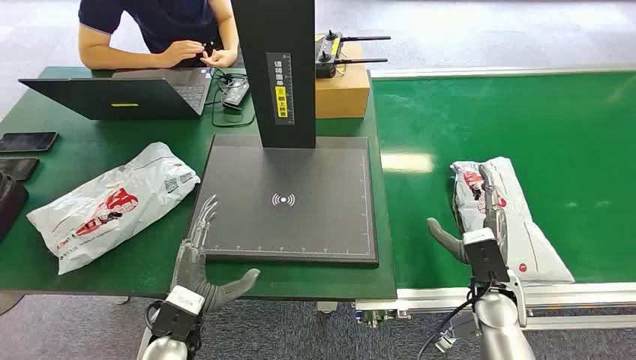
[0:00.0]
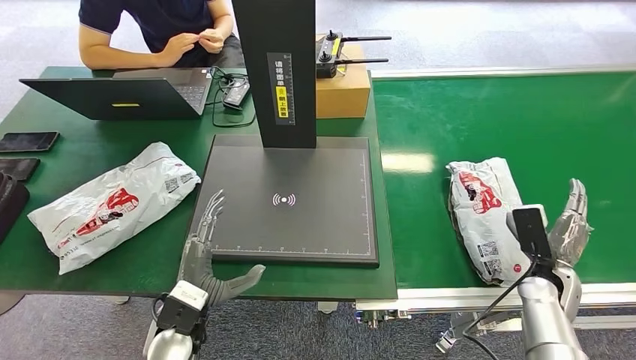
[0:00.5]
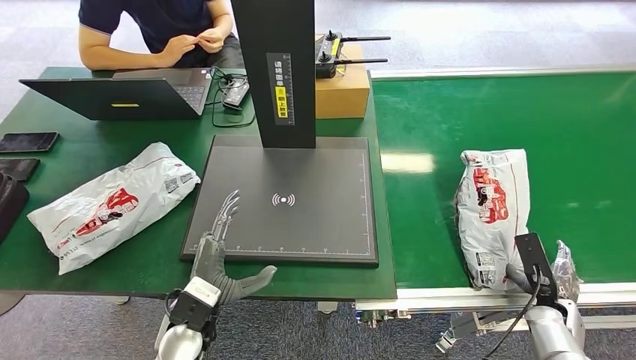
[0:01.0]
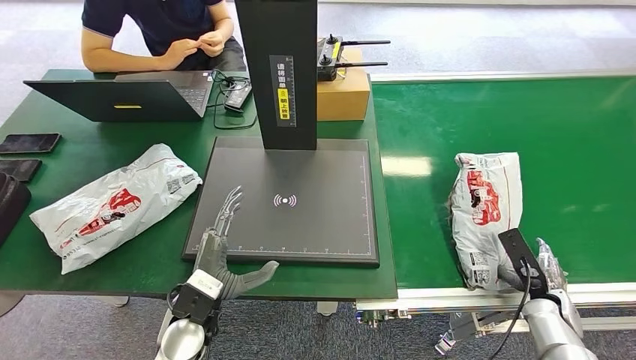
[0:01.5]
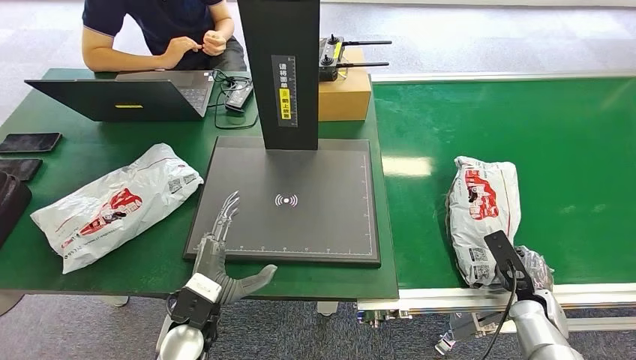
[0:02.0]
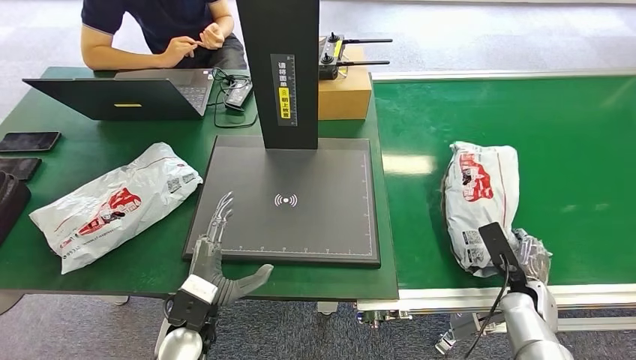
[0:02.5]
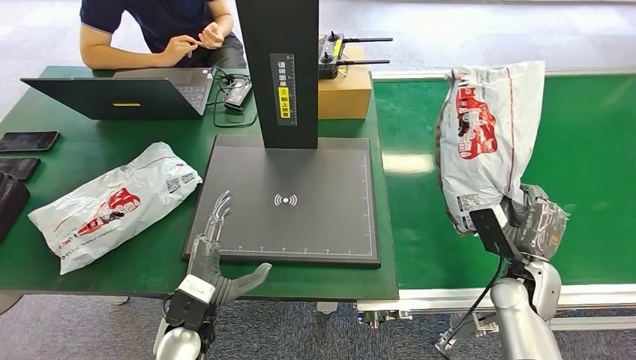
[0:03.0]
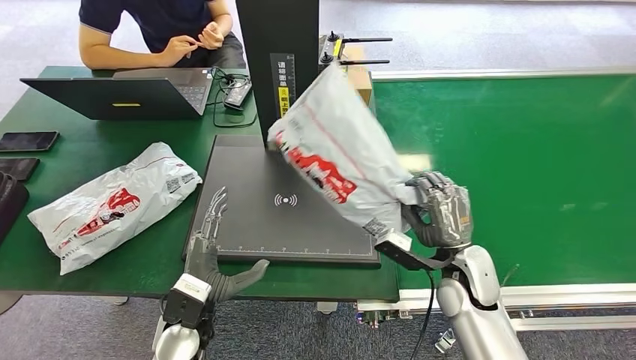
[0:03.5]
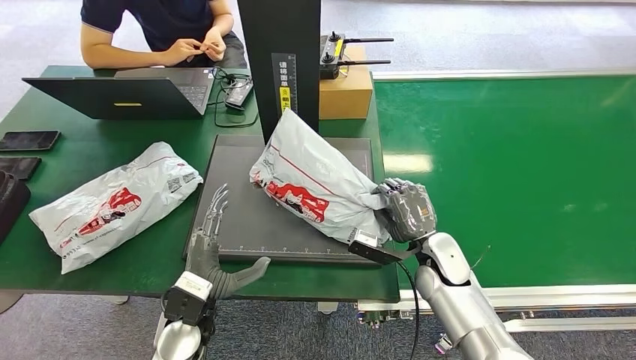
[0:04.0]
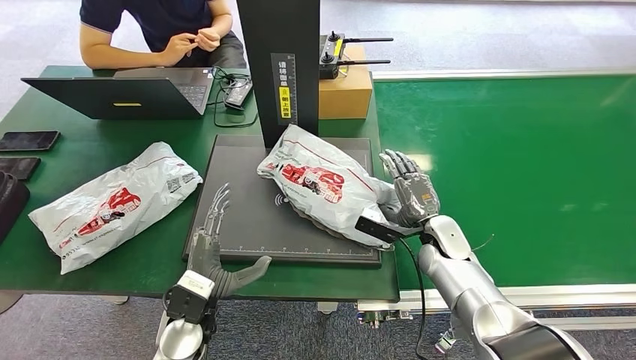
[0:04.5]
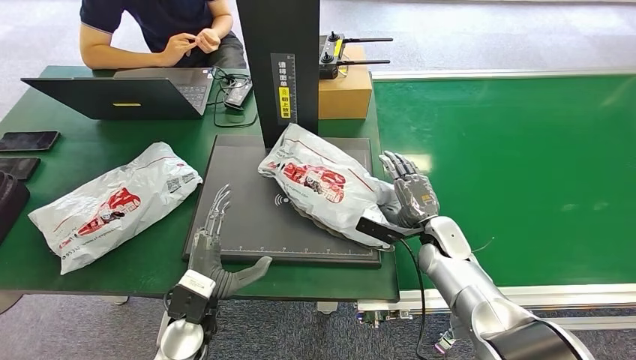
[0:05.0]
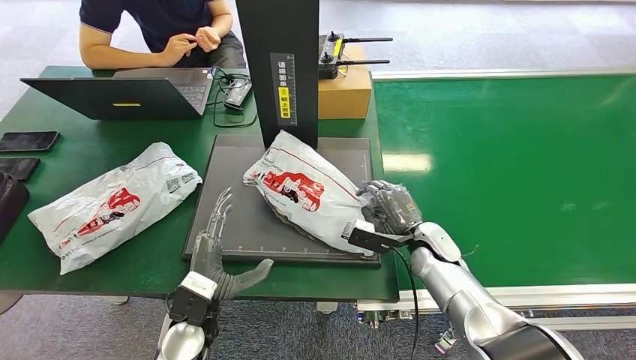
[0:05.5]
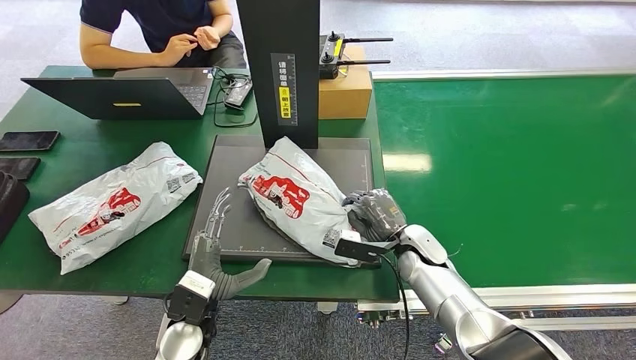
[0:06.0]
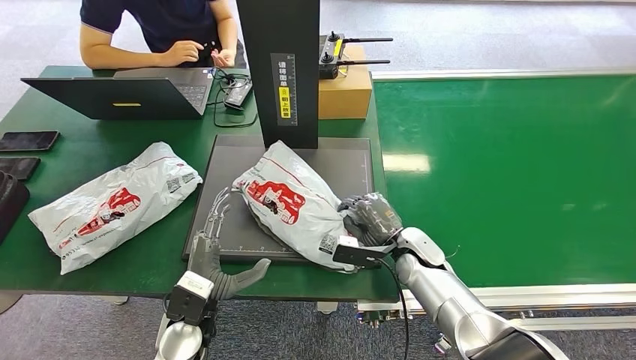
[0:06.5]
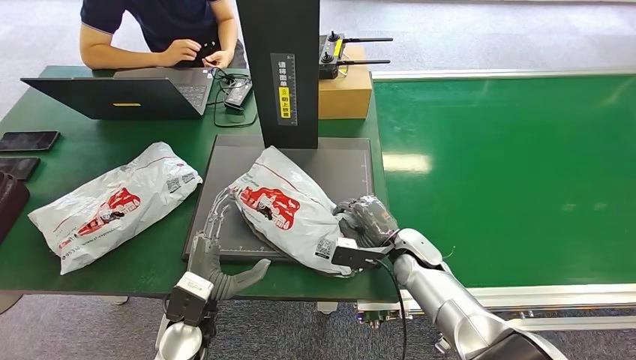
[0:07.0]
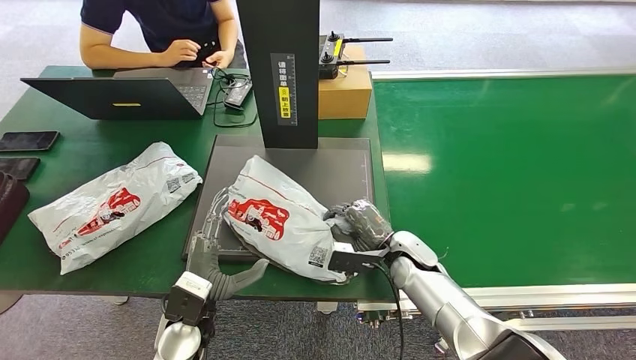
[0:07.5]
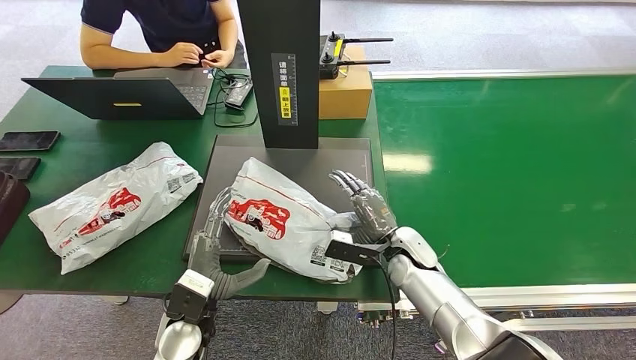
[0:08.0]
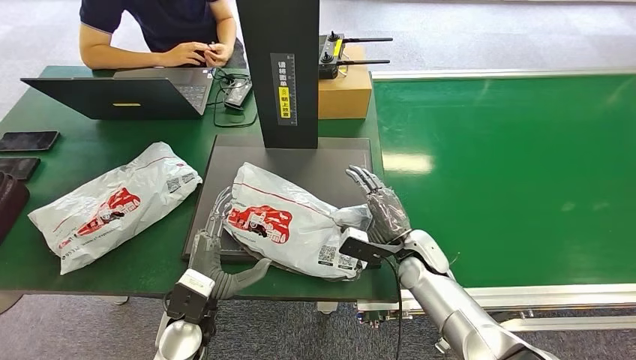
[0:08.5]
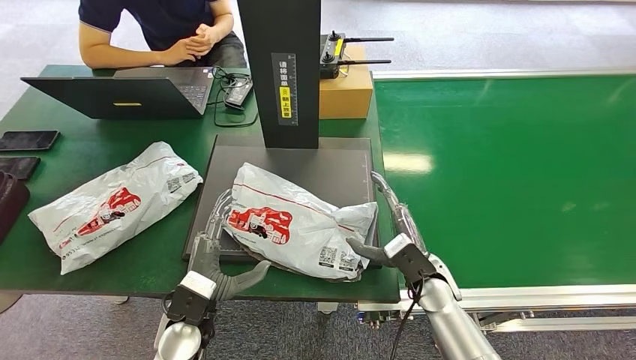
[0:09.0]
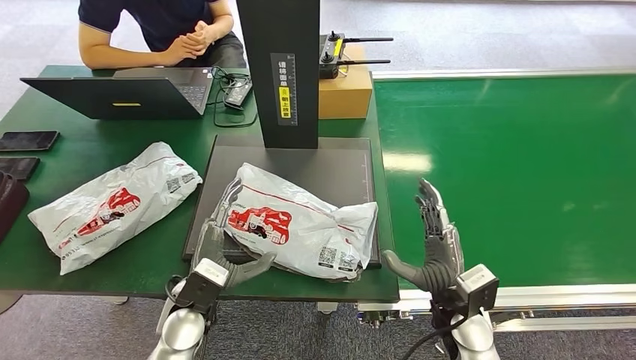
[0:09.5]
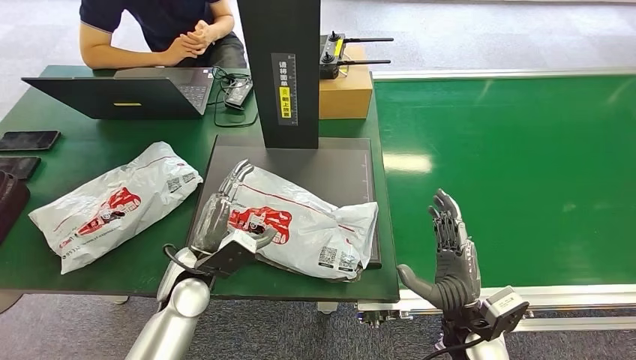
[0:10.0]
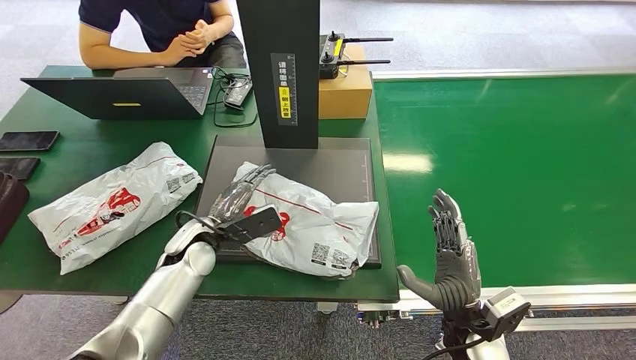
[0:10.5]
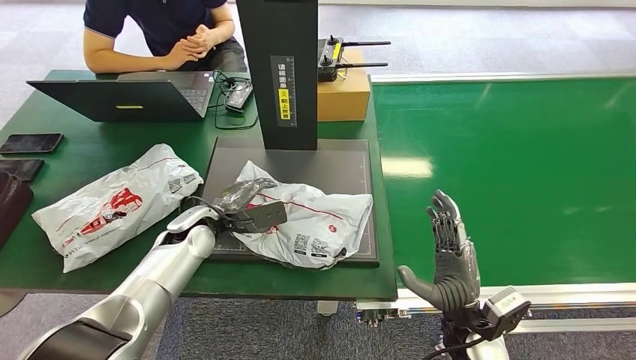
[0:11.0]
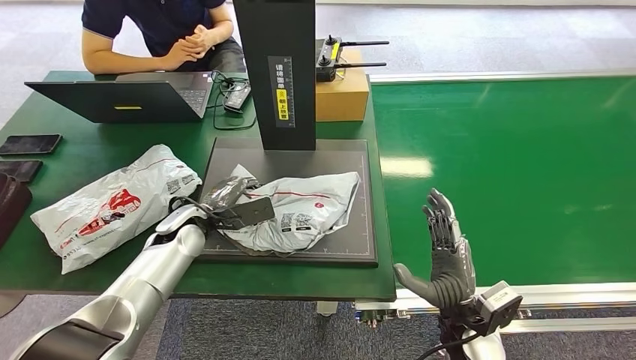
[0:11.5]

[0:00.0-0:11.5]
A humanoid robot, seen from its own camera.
Step, 0:00.0 to 0:02.5: Pick up the package from the conveyor belt.
Step, 0:03.0 to 0:08.5: Place the package onto the inbound machine.
0:04.0 to 0:06.0: The right hand moves approximately 5 cm.
0:06.0 to 0:07.5: The hands move only a little.
0:07.5 to 0:09.5: The right hand is displaced backward and to the right by approximately 15 cm.

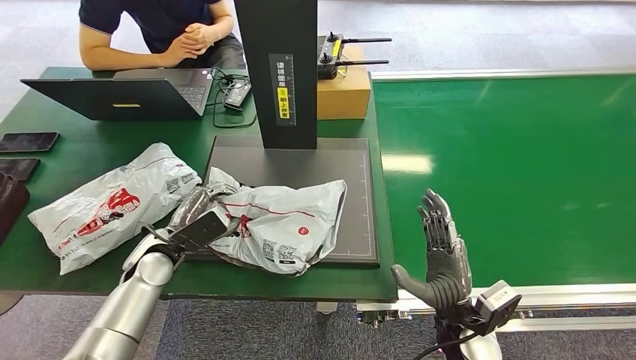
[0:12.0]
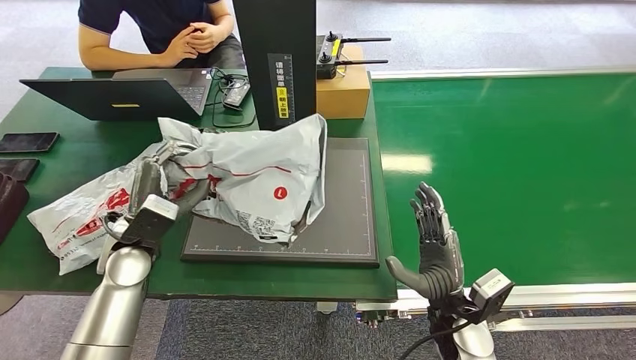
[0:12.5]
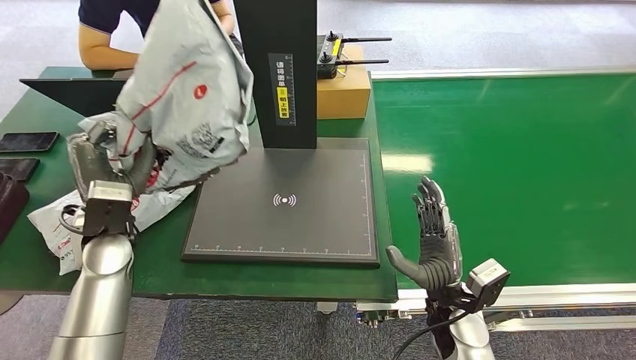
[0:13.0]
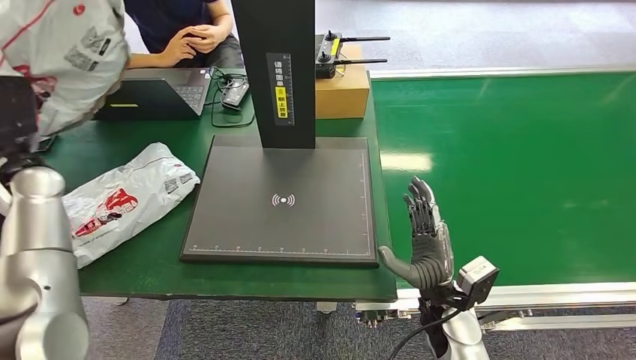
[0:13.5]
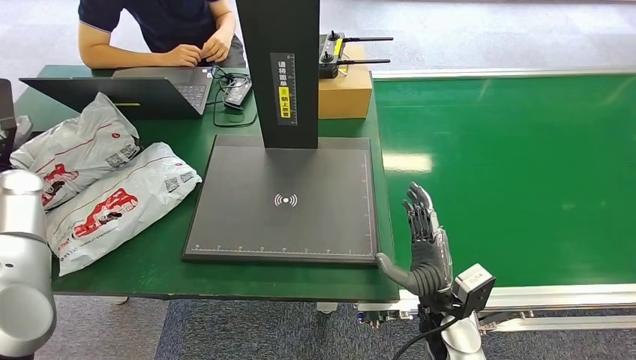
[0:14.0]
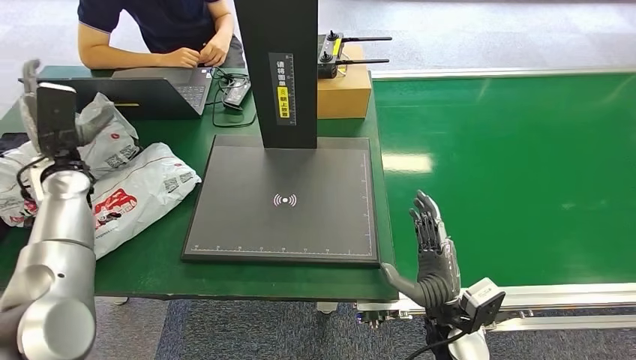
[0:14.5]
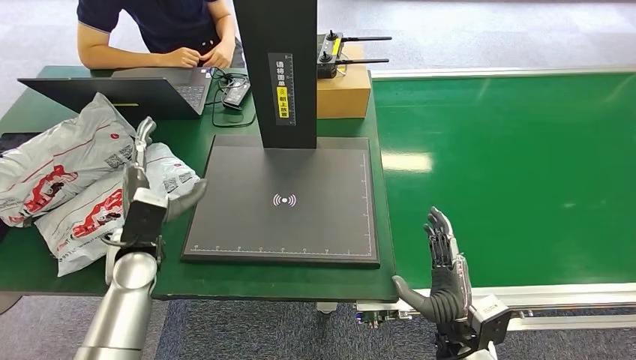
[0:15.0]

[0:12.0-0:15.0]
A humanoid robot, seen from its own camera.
Step, 0:12.5 to 0:15.0: Place the package into the parcel locker.
